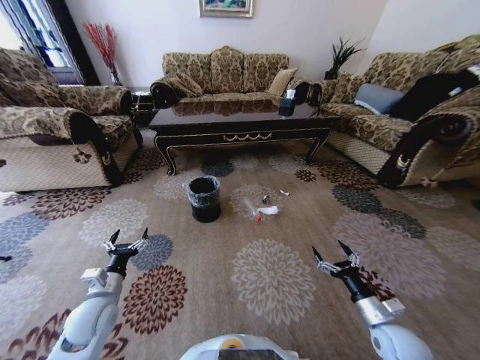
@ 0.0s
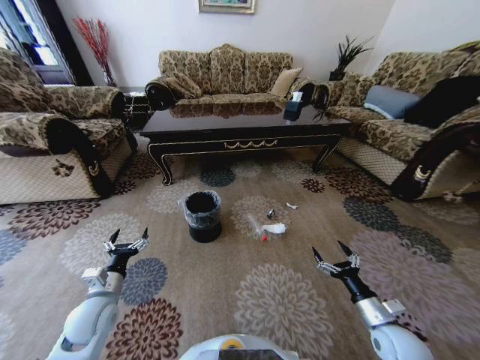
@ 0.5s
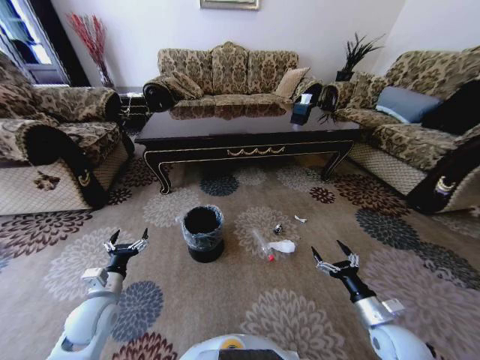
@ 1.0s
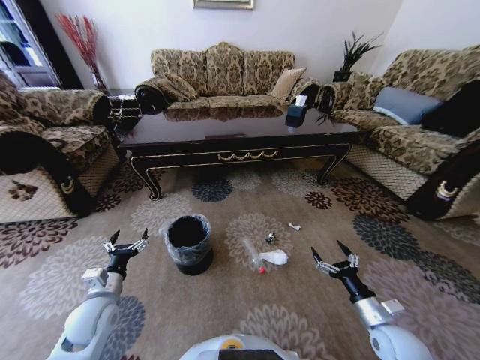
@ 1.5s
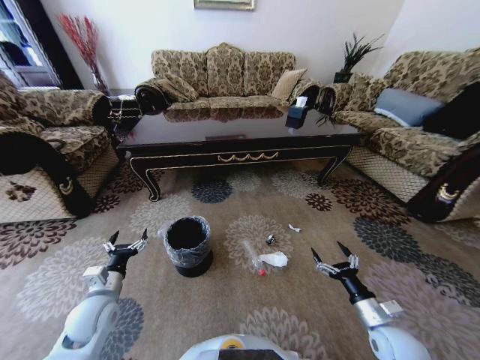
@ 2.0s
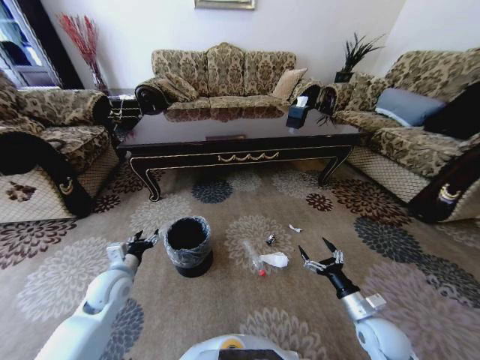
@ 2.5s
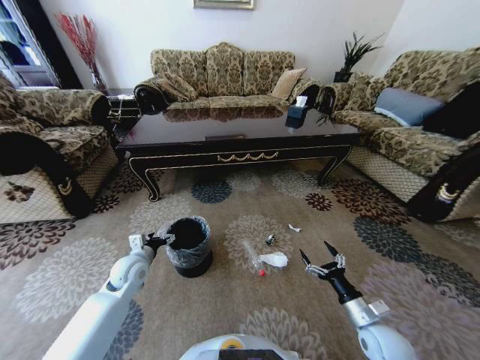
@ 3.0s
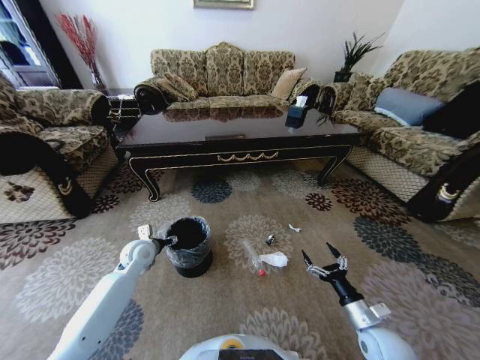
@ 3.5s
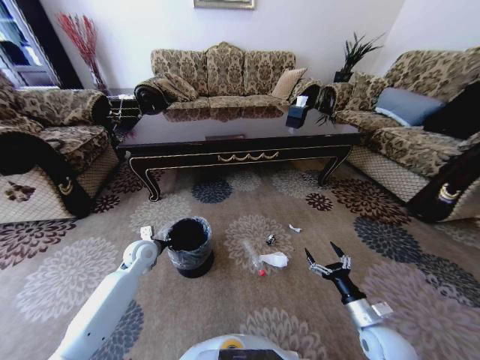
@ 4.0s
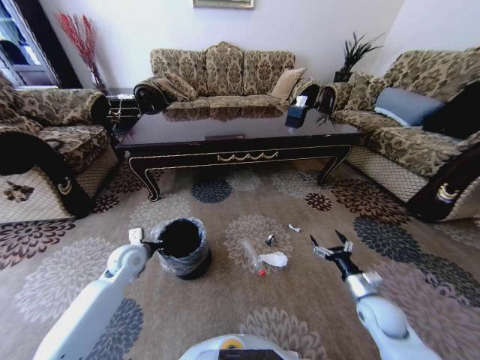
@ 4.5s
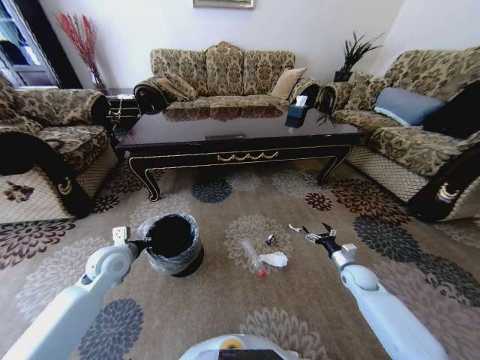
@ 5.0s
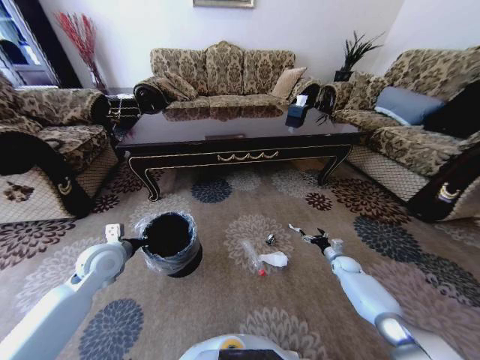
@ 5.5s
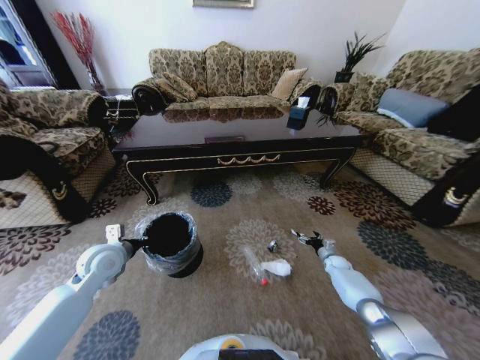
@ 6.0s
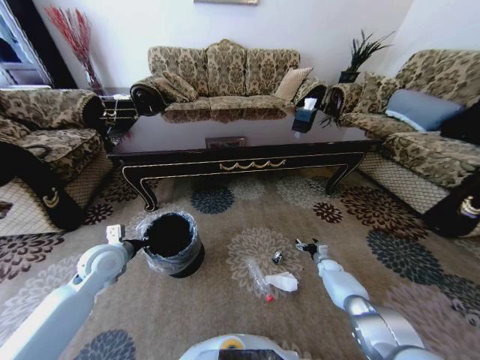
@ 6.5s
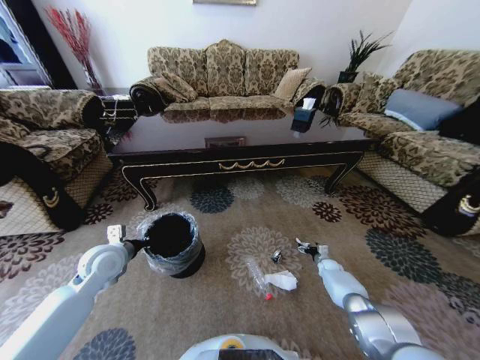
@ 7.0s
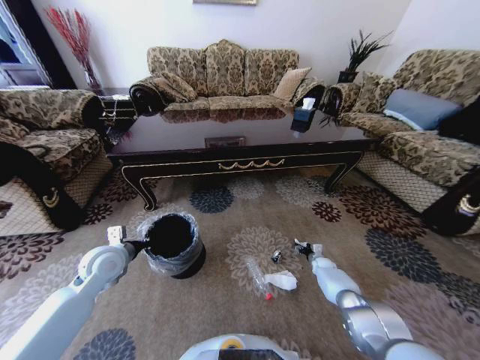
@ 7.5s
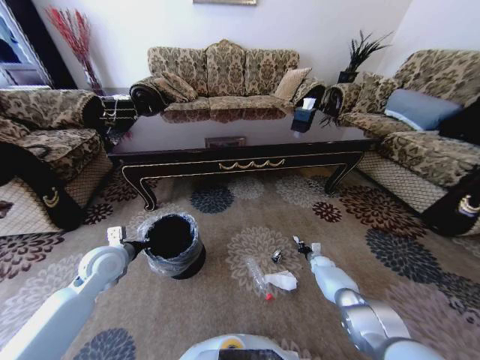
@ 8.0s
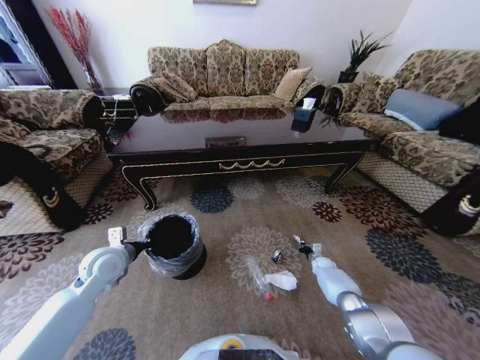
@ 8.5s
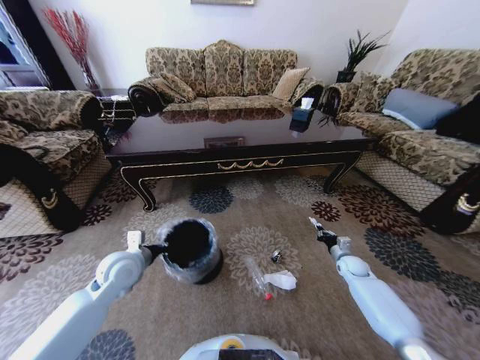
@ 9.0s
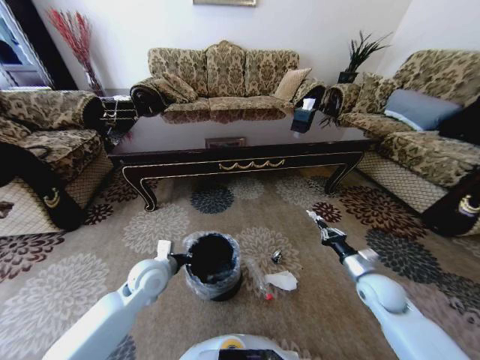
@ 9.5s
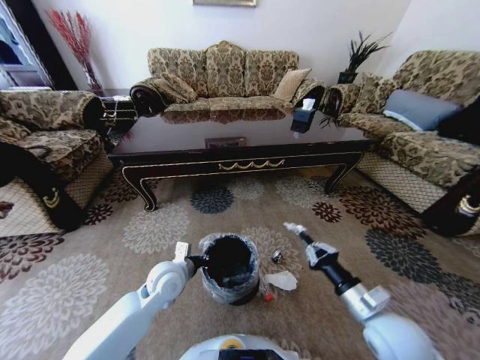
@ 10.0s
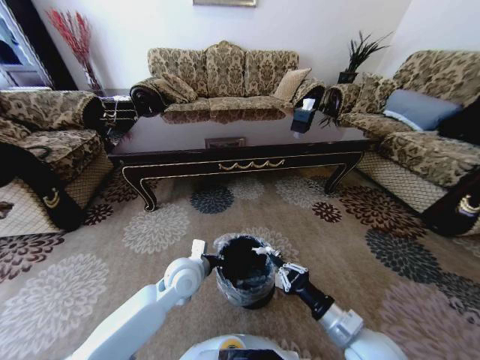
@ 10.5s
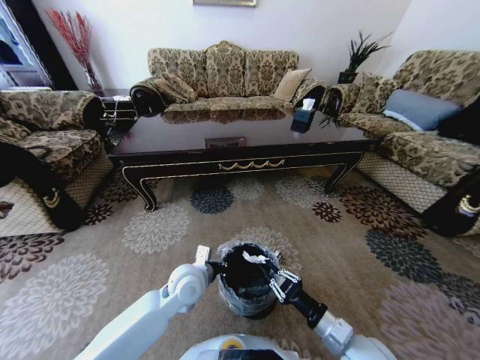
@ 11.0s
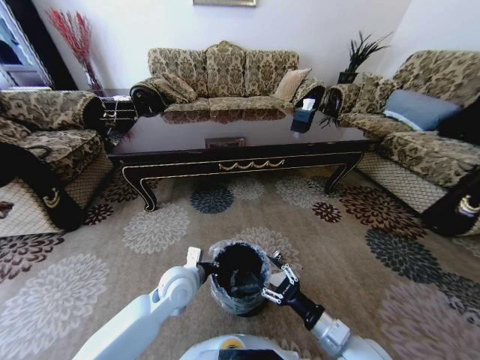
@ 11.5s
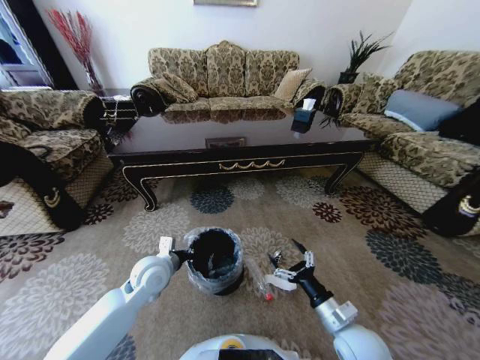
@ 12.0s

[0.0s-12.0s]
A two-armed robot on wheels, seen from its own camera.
Task of the whole recording: Move to the front of the table and pick up the trash from the floor, then place it into the trash bin.
2.0s to 4.0s: The left gripper travels forward by some 15 cm, and closes.
4.0s to 6.0s: The left gripper moves upward and backward, approximately 10 cm, while the right gripper heads forward and downward, covering some 30 cm.
6.0s to 8.0s: The right gripper ends up approximately 5 cm from where it was, and closes.
8.0s to 10.0s: The left gripper travels to the right by approximately 15 cm; the right gripper goes some 40 cm upward and backward.
10.0s to 12.0s: The right gripper moves downward, about 5 cm, and opens up.

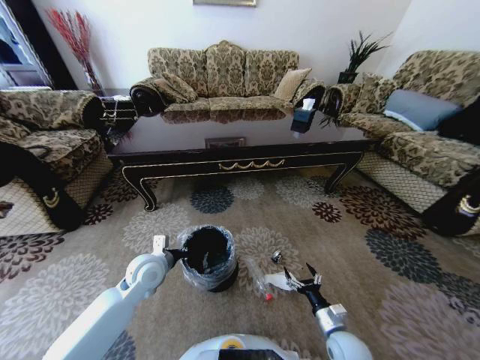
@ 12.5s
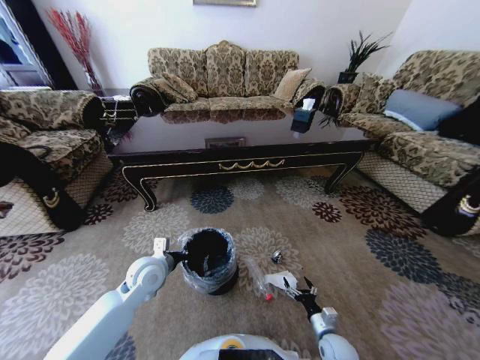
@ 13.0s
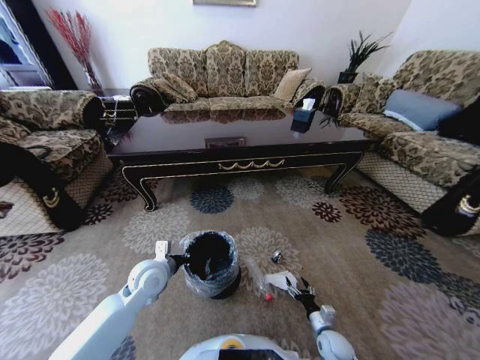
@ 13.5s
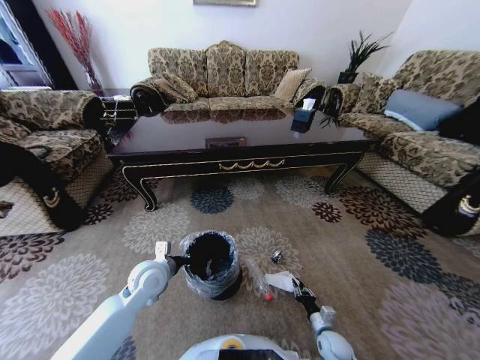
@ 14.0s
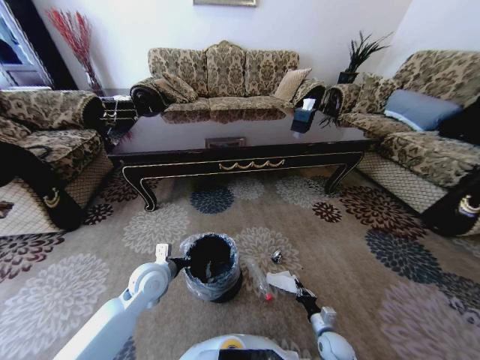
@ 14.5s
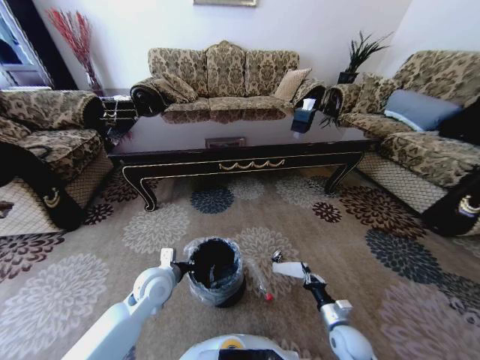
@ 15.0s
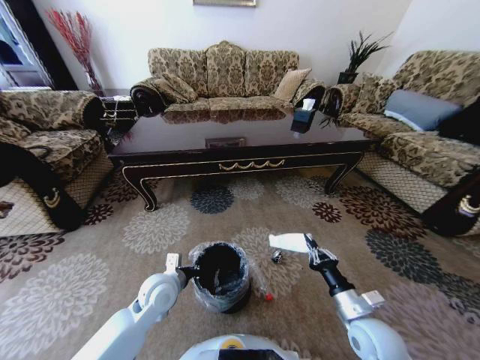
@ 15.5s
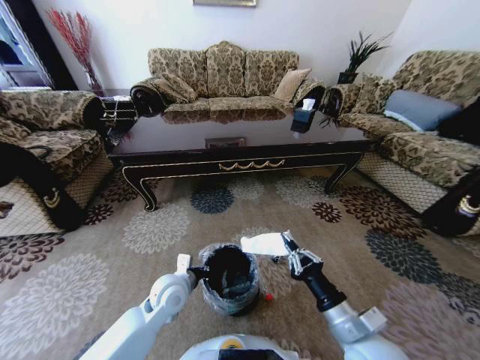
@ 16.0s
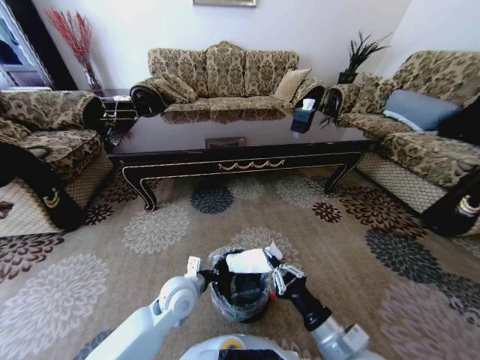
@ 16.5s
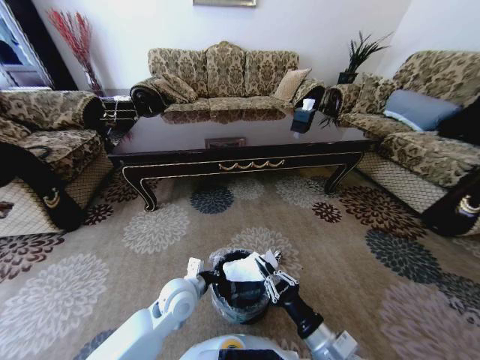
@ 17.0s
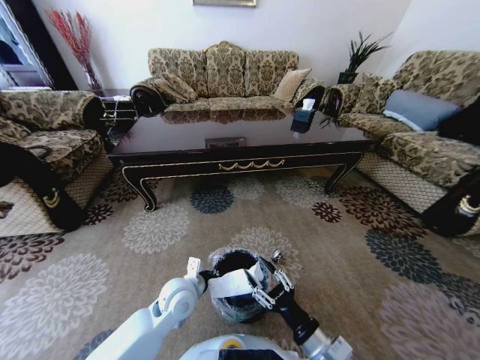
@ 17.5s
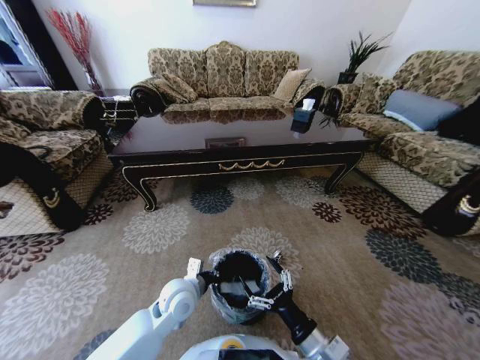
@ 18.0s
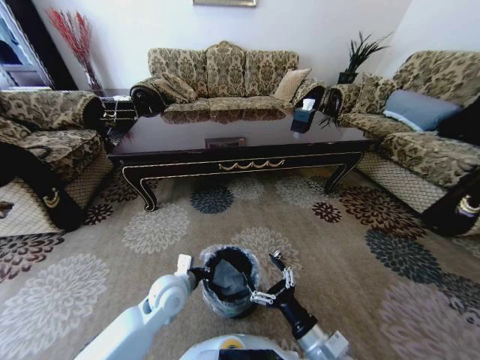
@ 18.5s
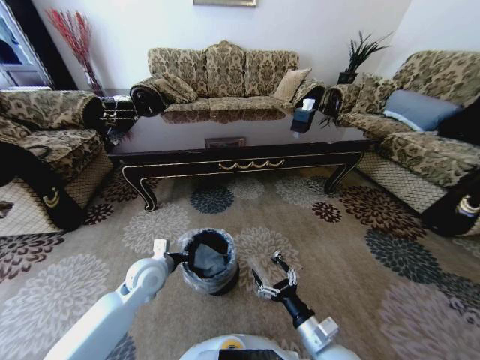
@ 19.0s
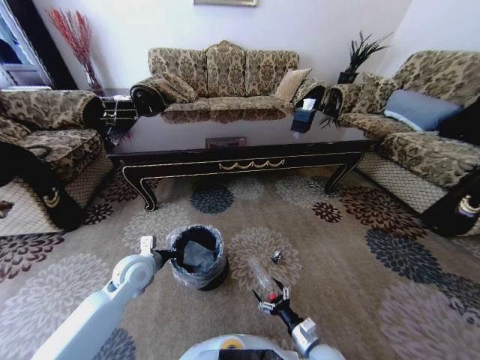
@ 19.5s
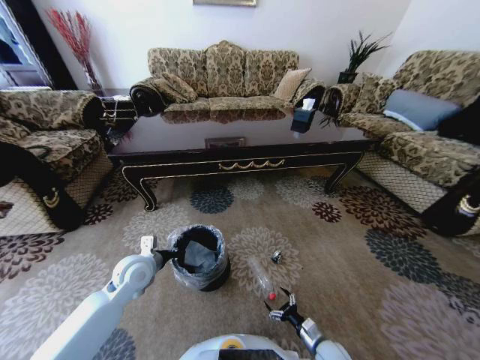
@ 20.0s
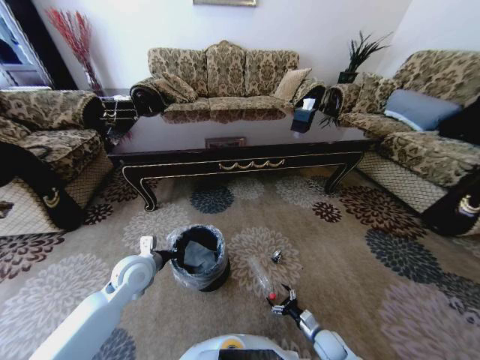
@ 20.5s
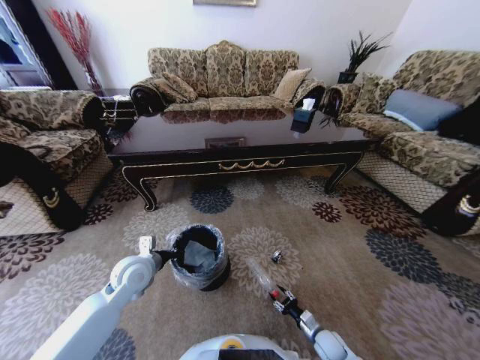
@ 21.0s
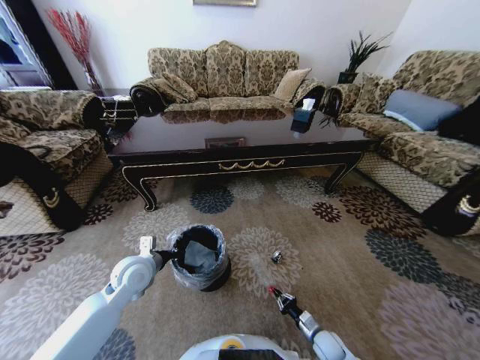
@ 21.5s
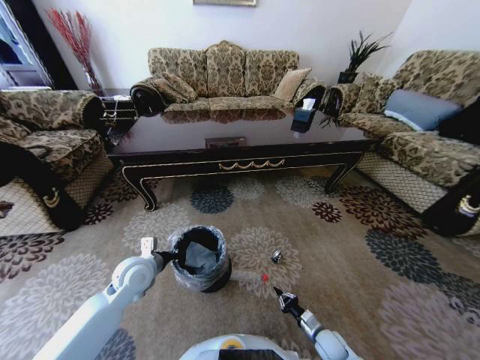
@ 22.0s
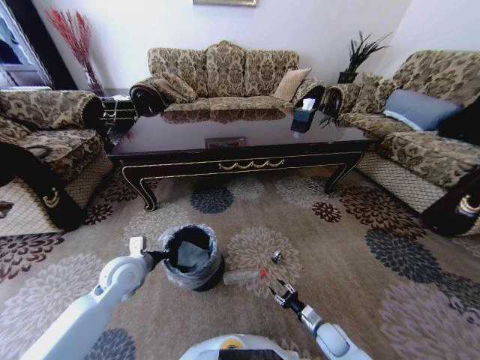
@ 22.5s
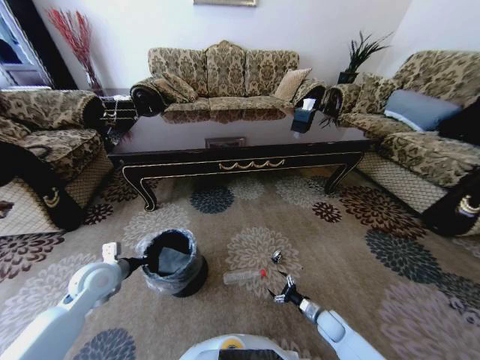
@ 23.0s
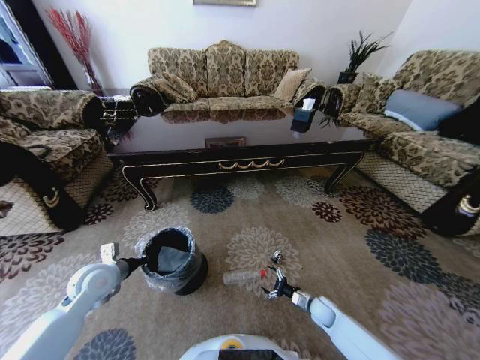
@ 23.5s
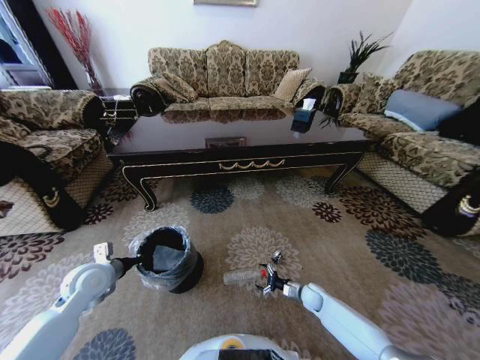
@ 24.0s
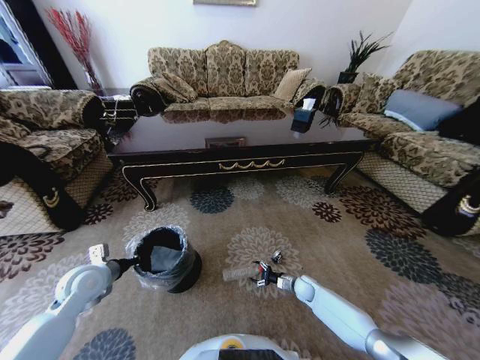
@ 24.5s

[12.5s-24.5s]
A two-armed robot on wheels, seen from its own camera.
Task of the whole recording: Move to the front of the table and pick up the trash from the floor, then place it into the trash bin.
12.5s to 14.5s: The right gripper is displaced downward by approximately 10 cm, and closes its fingers.
14.5s to 16.5s: The right gripper travels upward by roughly 30 cm. Meanwhile the left gripper travels to the right by some 10 cm.
16.5s to 18.5s: The right gripper opens.
18.5s to 20.5s: The right gripper is displaced downward and to the right by roughly 30 cm, while the left gripper shifts about 10 cm to the left.
20.5s to 22.5s: The right gripper closes its fingers.
22.5s to 24.5s: The left gripper heads to the left, covering some 10 cm, while the right gripper moves forward, approximately 15 cm, and opens its fingers.

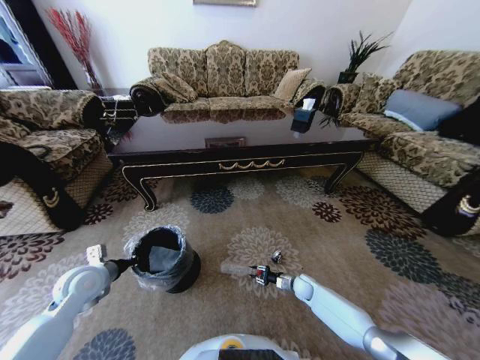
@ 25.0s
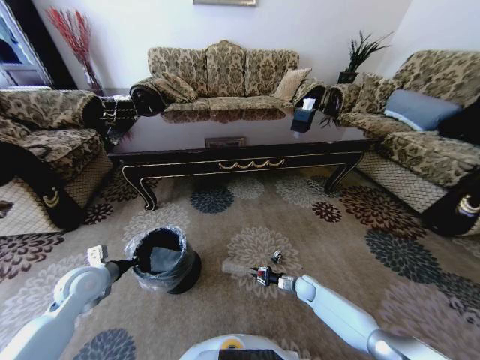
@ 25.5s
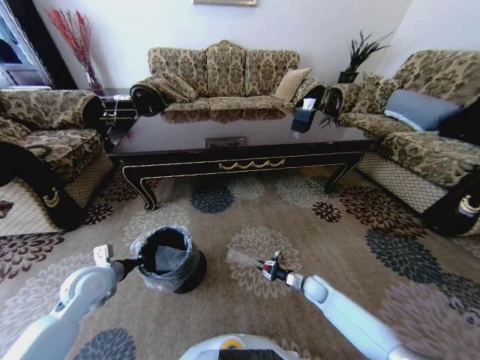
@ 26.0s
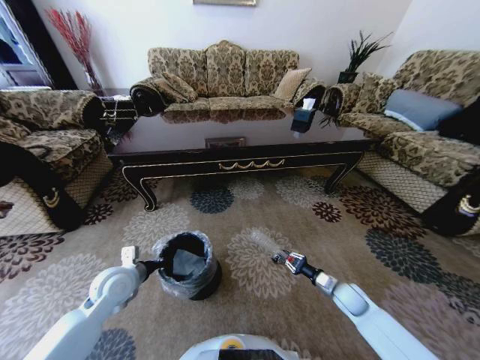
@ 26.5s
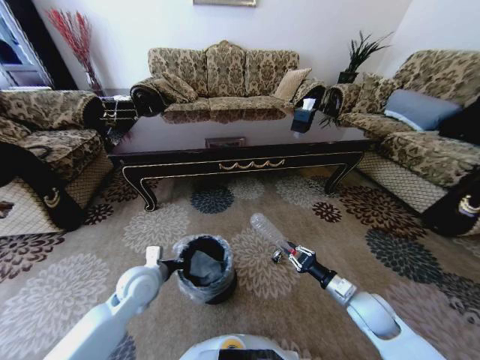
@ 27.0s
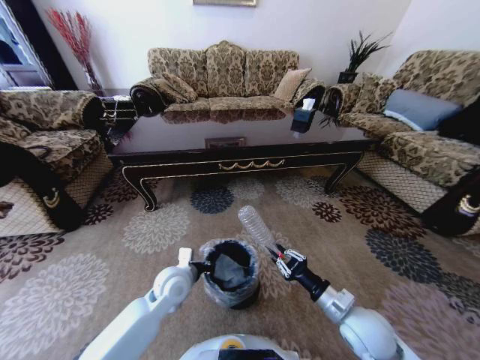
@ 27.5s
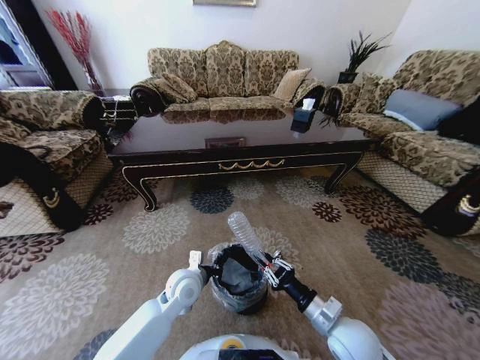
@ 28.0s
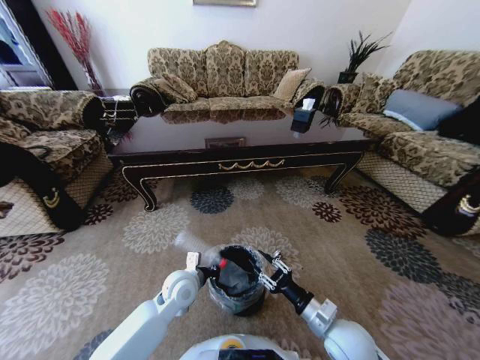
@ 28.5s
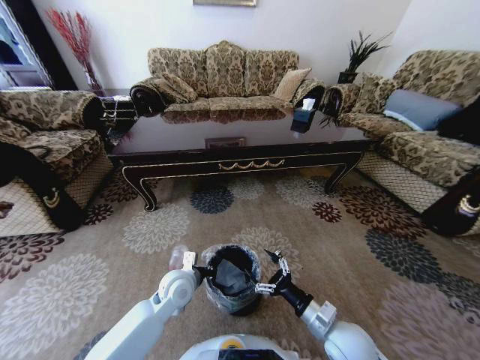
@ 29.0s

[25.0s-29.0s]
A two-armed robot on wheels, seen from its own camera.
Task of the whole recording: Move to the front of the table and pick up the trash from the floor, then place it into the trash bin.
25.0s to 27.0s: The left gripper moves to the right, some 15 cm. The right gripper moves upward and backward, approximately 25 cm.
27.0s to 29.0s: The left gripper shifts approximately 10 cm to the right, while the right gripper goes about 15 cm to the left and backward, and opens up.
